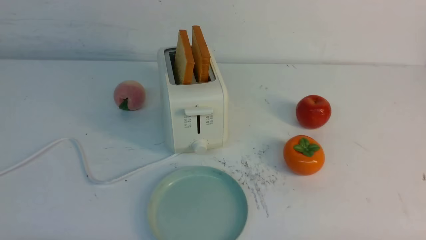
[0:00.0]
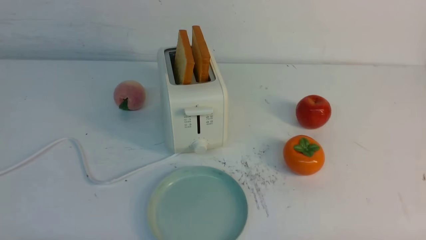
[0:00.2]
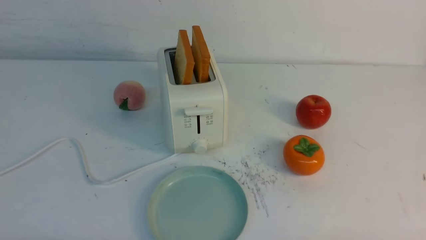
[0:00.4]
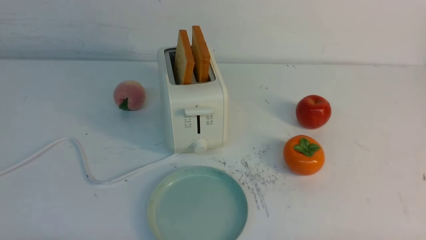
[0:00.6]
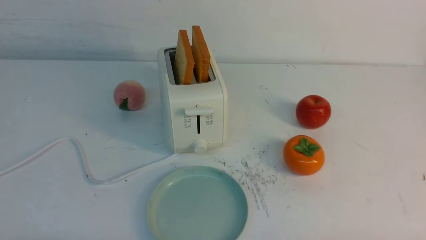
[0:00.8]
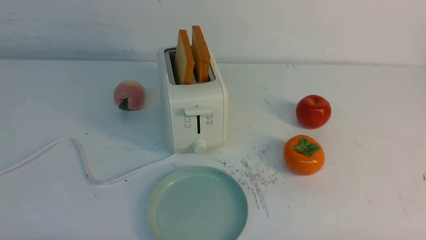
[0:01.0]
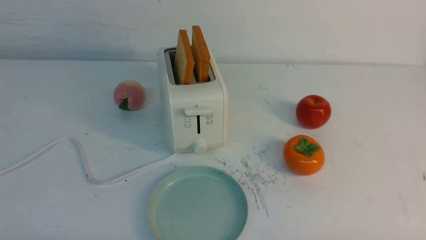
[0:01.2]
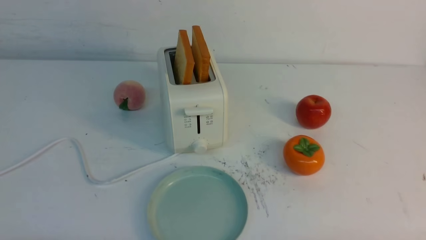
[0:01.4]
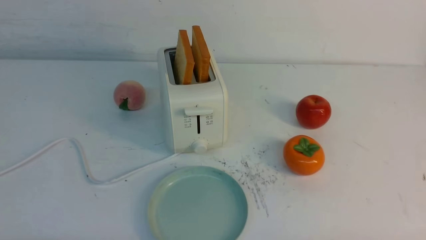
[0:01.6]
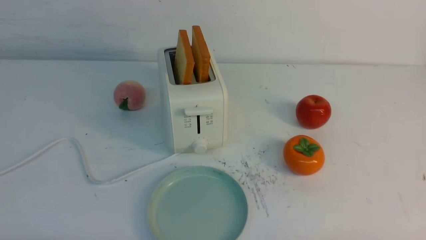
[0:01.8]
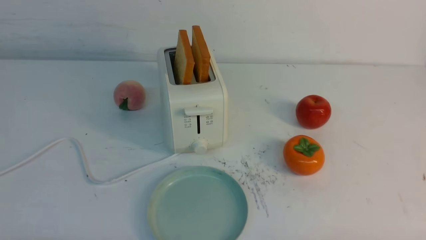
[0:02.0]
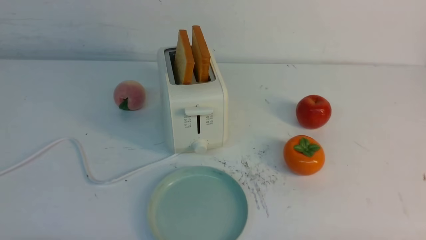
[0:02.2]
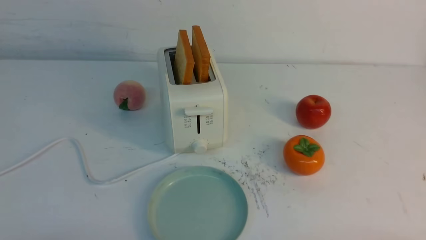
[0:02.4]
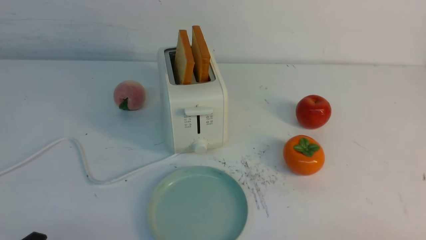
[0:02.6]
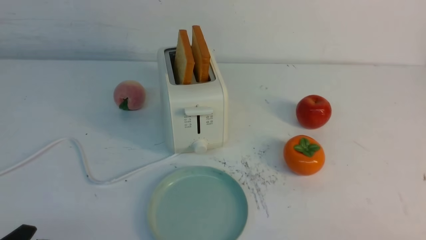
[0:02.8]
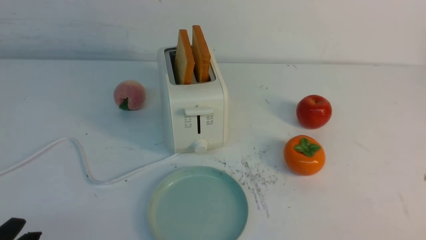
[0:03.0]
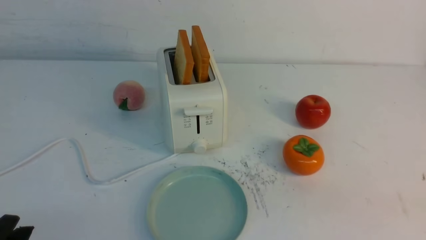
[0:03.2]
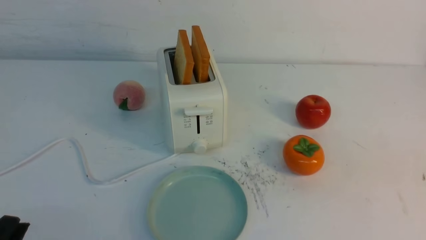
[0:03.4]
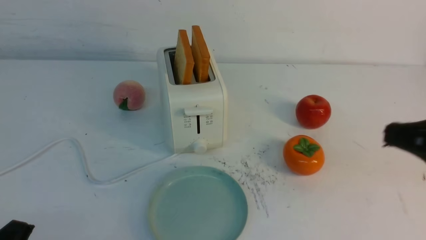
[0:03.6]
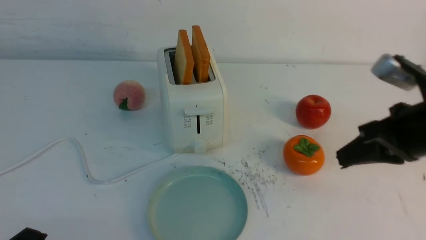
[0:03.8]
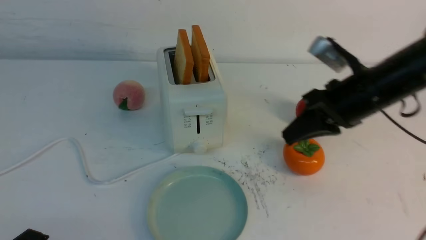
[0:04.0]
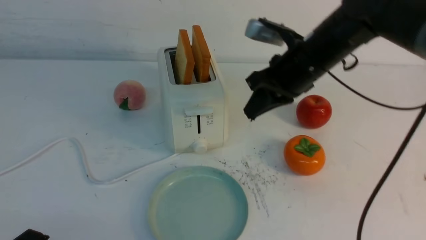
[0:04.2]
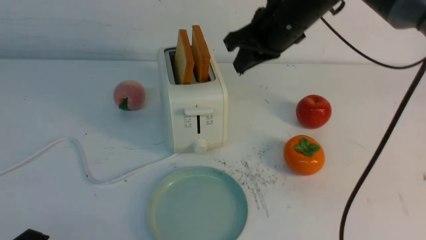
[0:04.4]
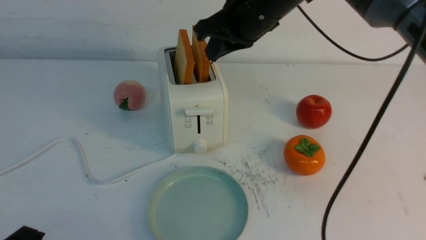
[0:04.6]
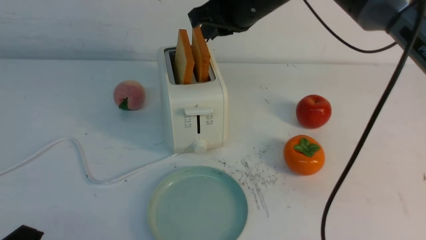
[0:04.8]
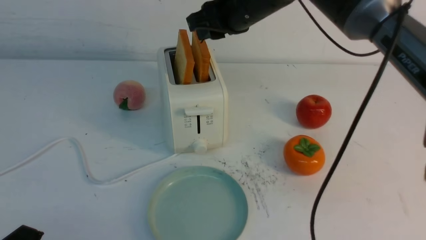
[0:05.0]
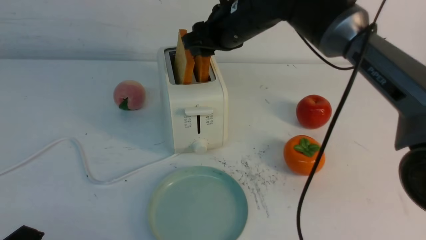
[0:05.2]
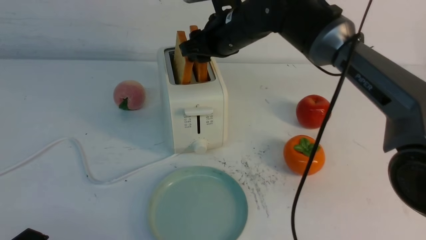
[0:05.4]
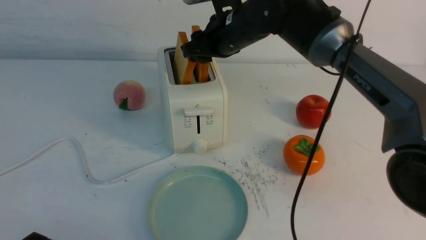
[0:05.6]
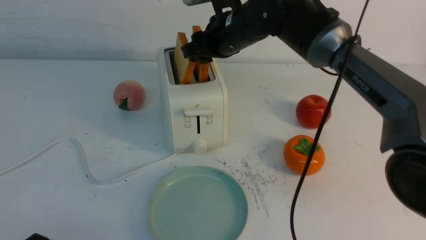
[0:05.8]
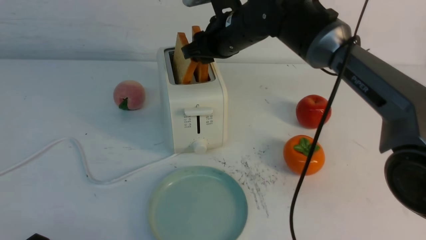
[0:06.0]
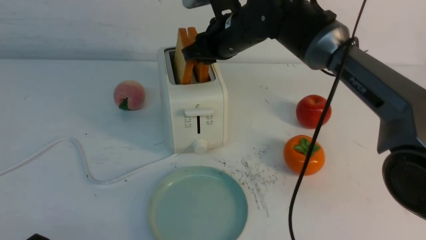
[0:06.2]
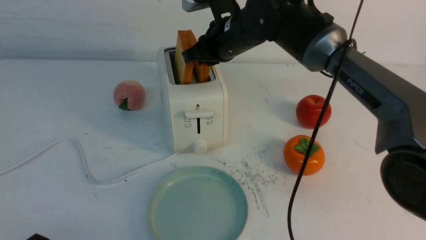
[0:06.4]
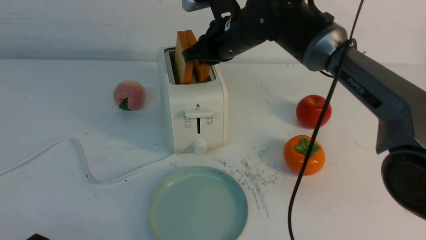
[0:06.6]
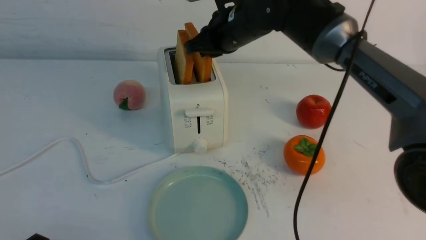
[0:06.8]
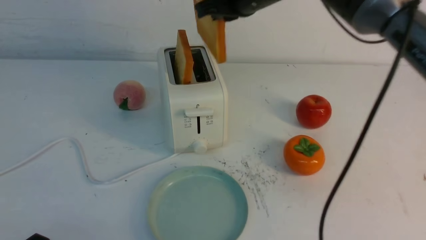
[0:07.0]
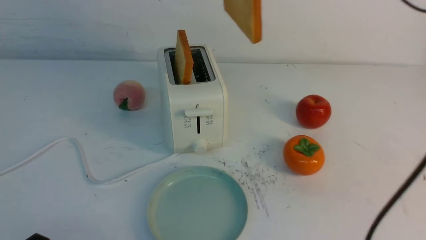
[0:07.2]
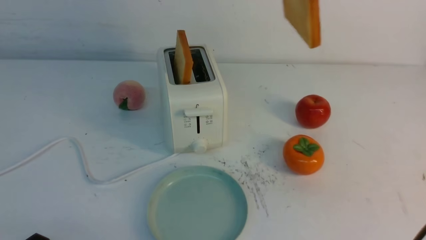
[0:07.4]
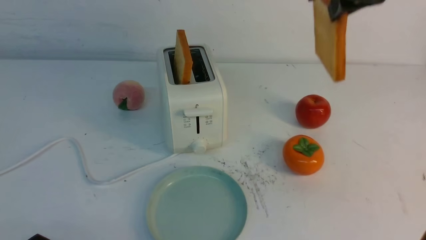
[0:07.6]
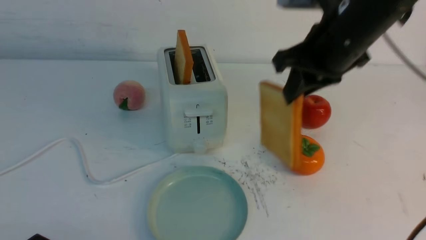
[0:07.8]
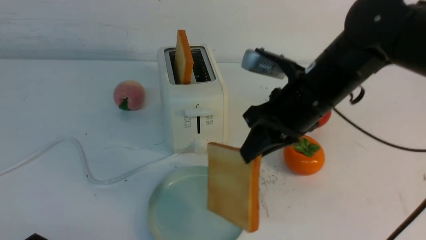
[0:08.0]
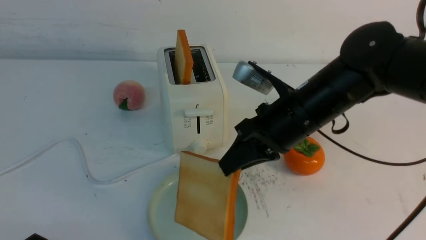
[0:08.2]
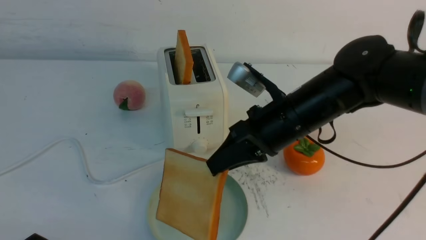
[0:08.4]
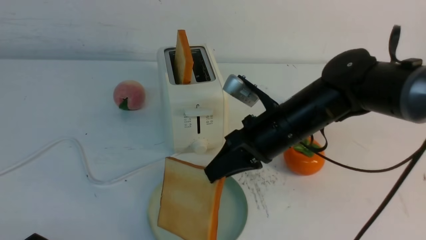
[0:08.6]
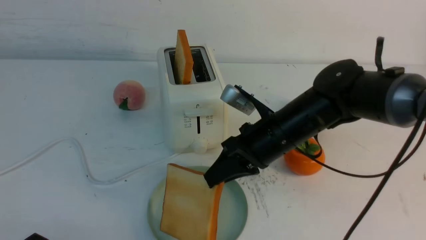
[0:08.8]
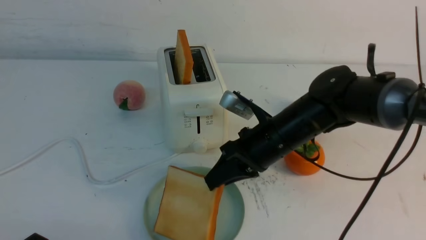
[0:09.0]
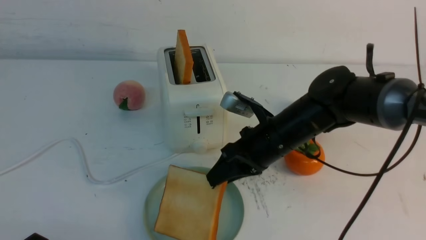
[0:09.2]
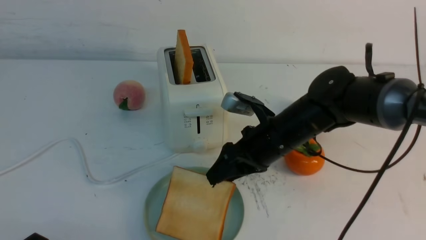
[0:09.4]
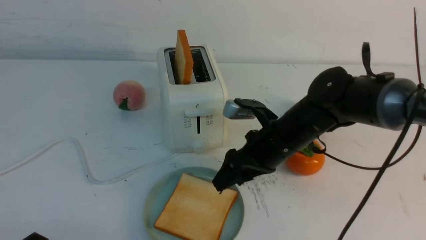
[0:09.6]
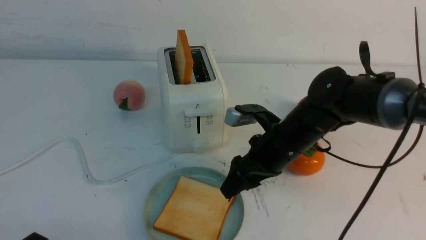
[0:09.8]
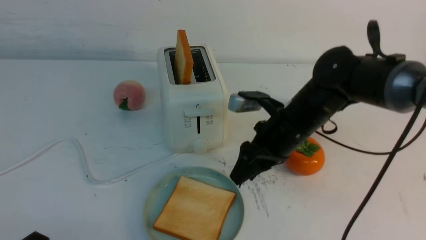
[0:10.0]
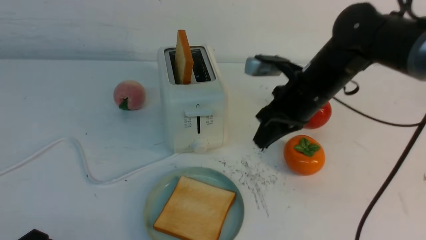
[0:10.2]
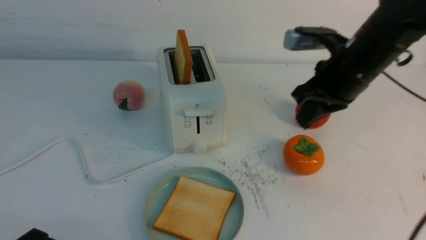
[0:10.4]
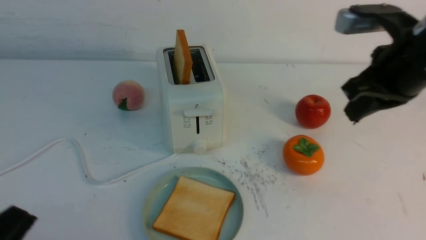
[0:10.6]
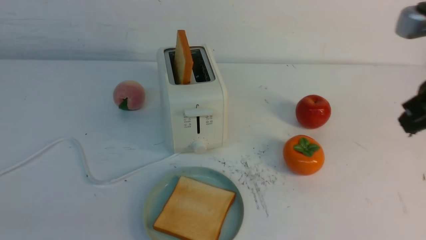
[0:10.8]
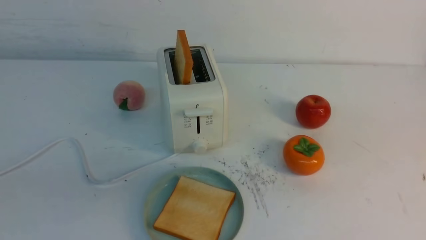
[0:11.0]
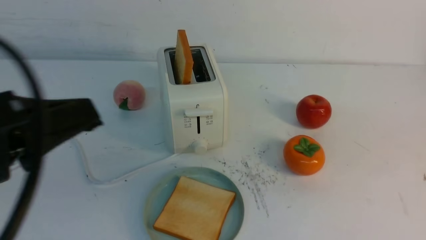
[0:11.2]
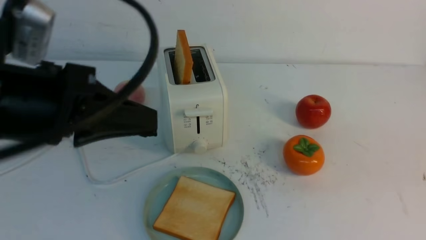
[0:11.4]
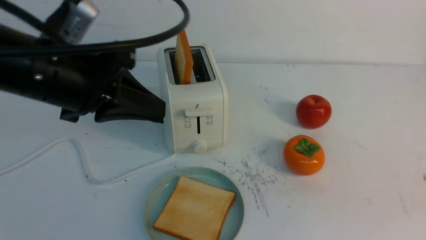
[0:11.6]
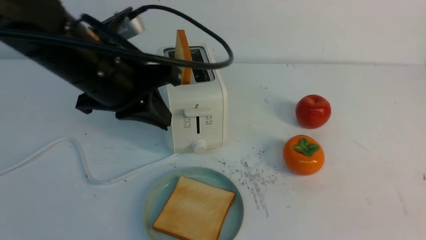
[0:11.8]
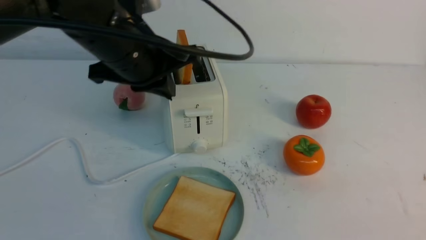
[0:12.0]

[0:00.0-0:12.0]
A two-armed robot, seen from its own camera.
Task of the whole recording: take toasted bread from bread machine on white table place on plate.
Step, 0:00.0 to 0:06.8: use the right arm to take out a slice of bread.
Step, 0:07.2 to 0:09.6: use the right arm to put a slice of bread into the plate.
0:00.0 to 0:01.6: The two grippers keep their place.
0:03.0 to 0:04.4: The right gripper is displaced forward and to the left by some 40 cm; the left gripper closes.
0:04.4 to 0:06.0: The right gripper shifts some 10 cm forward and to the left, and opens up.
0:06.0 to 0:07.6: The right gripper moves to the right, upward and backward, approximately 20 cm, and closes its fingers.
0:07.6 to 0:09.0: The right gripper goes some 20 cm downward.
0:09.0 to 0:10.4: The right gripper moves upward and to the right, some 15 cm, and closes its fingers.
0:10.4 to 0:12.0: The left gripper is displaced forward, upward and to the right by approximately 35 cm. Meanwhile the right gripper shifts about 25 cm backward.

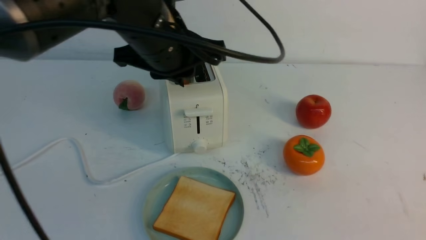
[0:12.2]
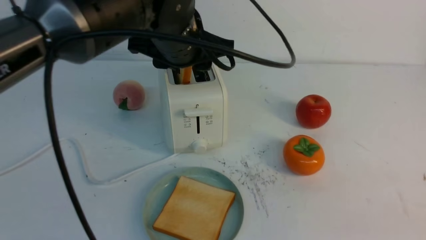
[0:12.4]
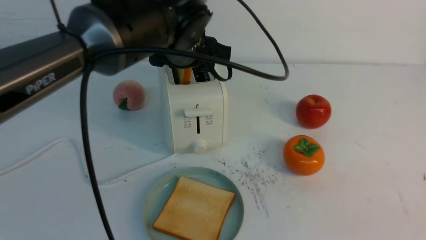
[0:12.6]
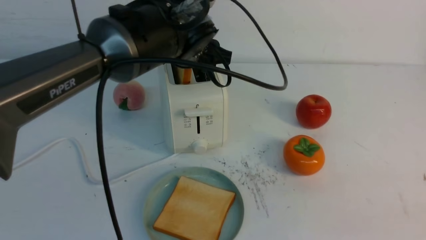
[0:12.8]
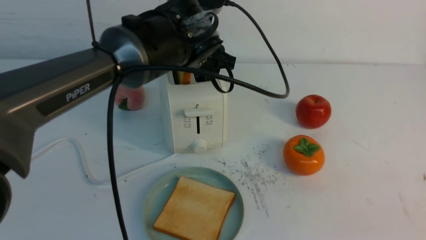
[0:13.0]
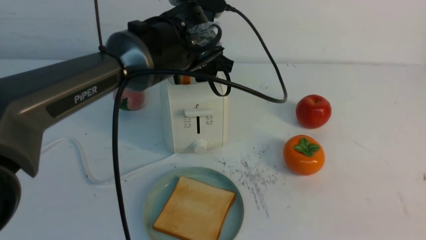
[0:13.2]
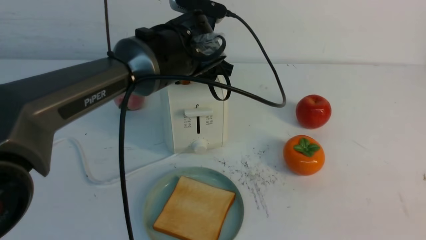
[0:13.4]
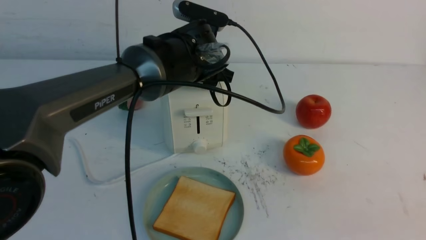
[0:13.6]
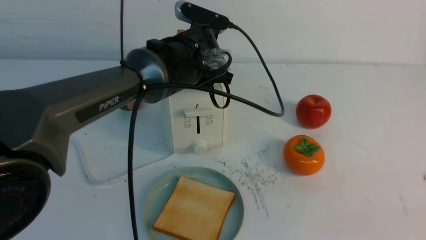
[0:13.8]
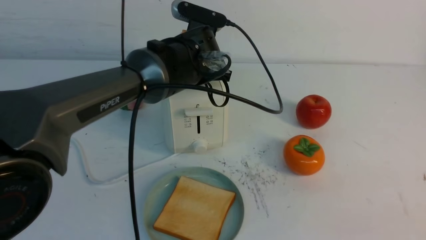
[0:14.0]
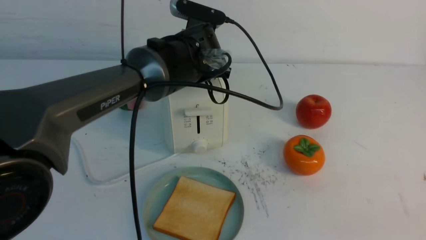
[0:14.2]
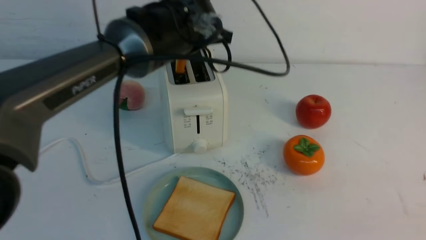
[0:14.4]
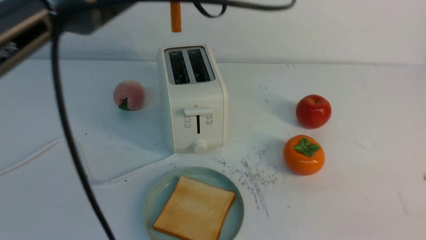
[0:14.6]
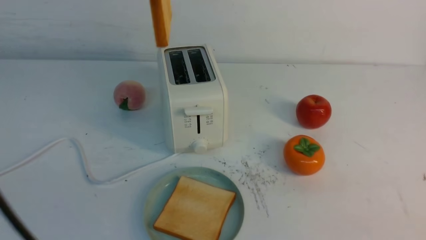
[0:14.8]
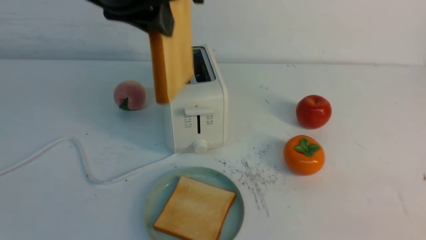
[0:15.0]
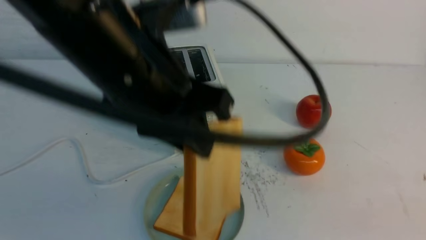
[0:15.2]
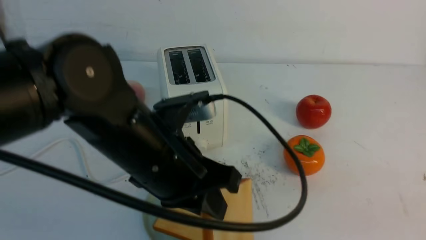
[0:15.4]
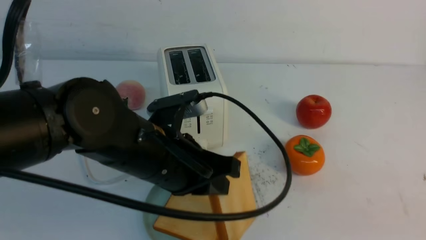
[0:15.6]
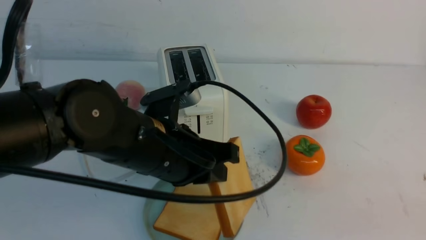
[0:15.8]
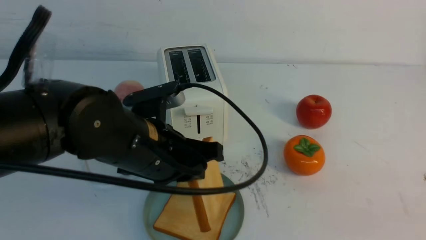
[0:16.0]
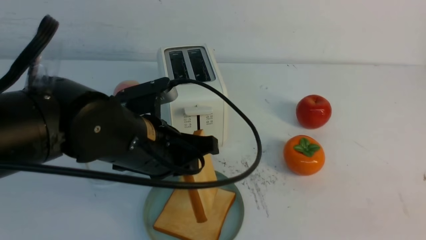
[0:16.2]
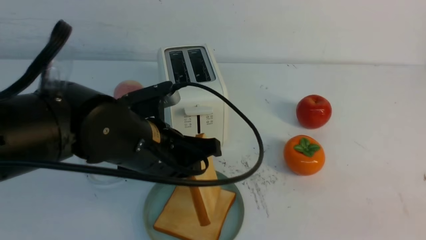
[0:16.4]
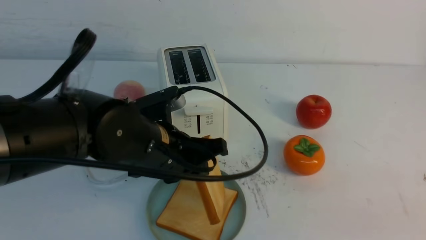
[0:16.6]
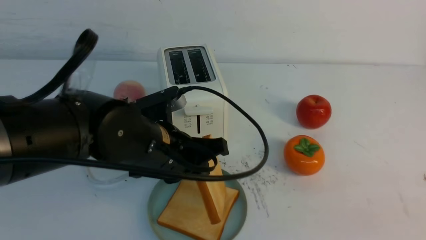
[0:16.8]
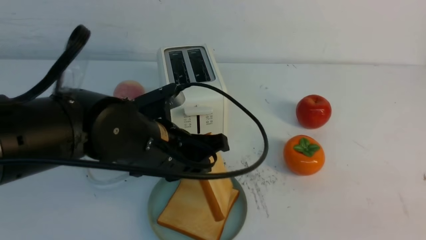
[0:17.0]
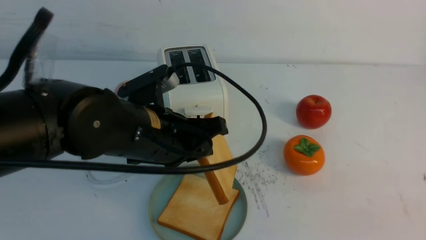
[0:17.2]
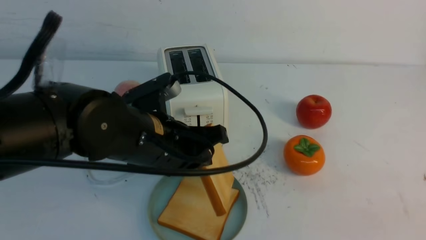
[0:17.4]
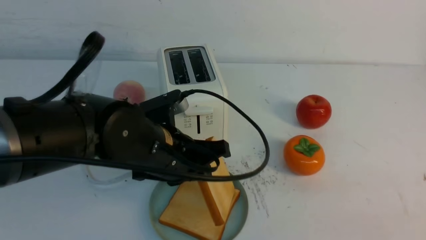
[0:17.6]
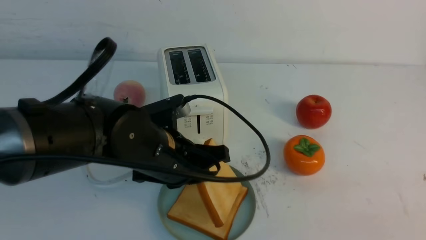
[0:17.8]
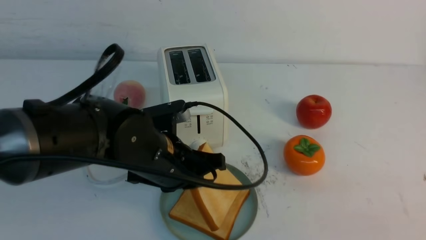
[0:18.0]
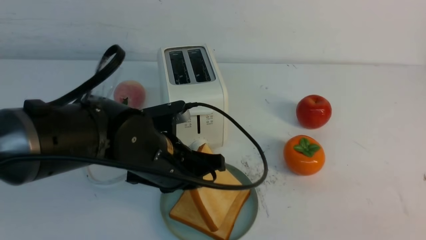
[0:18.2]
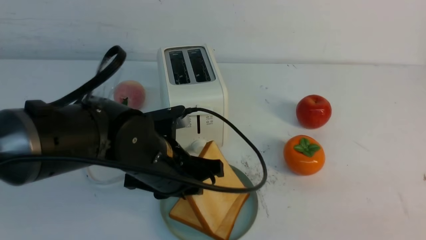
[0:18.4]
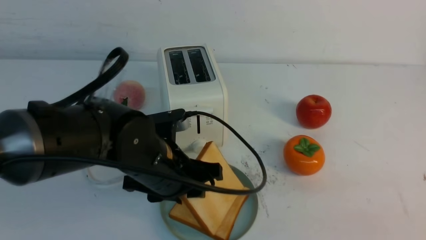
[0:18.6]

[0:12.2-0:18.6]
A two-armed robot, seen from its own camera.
Task of the whole recording: take toasted bread from bread machine on white table place on plate.
Step, 0:12.2 to 0:14.2: use the left arm to take out a slice of bread.
0:12.2 to 0:13.8: The left gripper is displaced forward and downward by some 10 cm.
0:13.8 to 0:15.4: The left gripper is displaced backward by some 20 cm, and closes its fingers.
0:15.4 to 0:17.0: The left gripper shifts by approximately 5 cm.
0:17.0 to 0:18.6: The left gripper opens.
